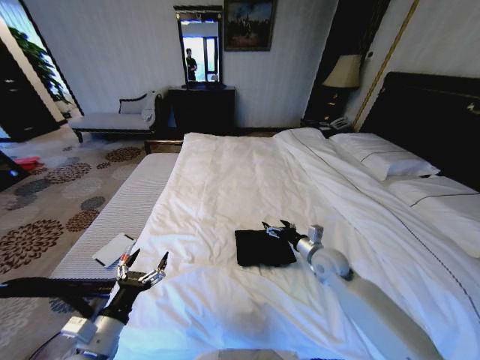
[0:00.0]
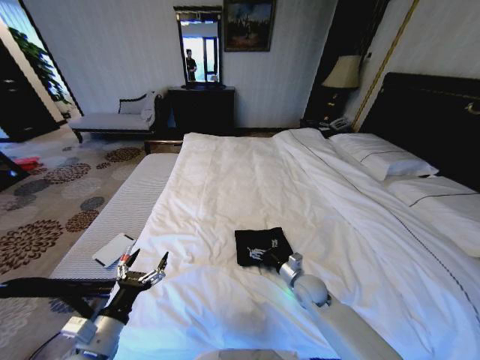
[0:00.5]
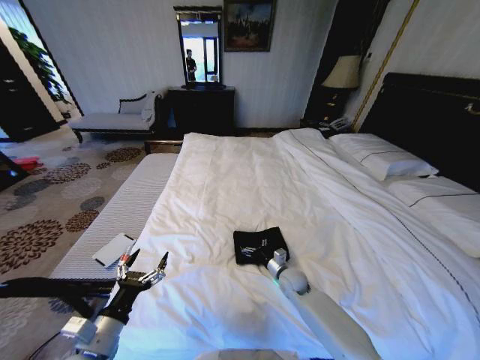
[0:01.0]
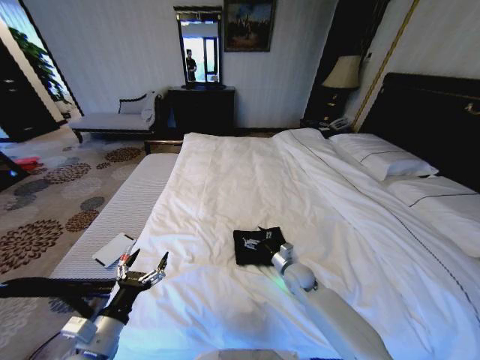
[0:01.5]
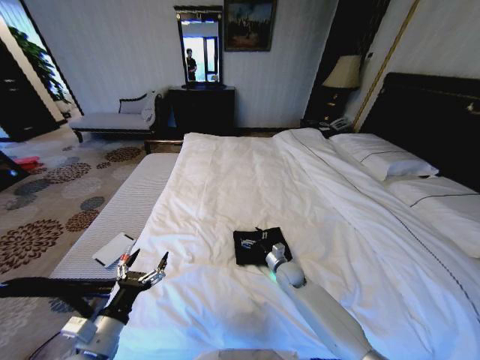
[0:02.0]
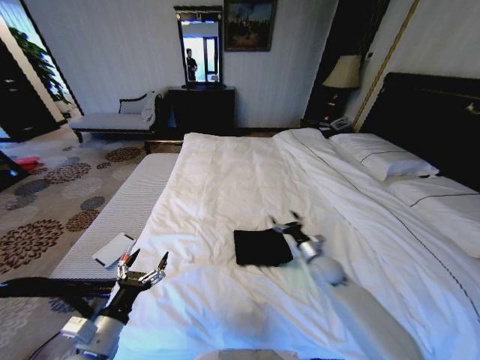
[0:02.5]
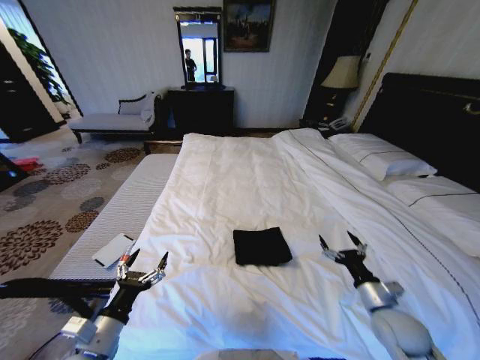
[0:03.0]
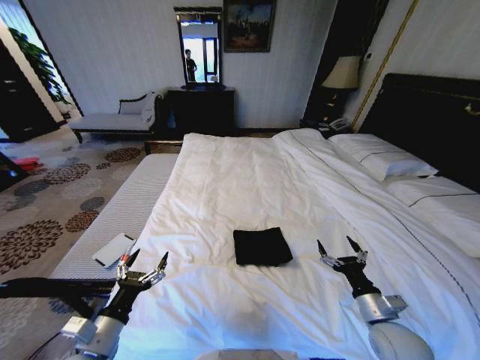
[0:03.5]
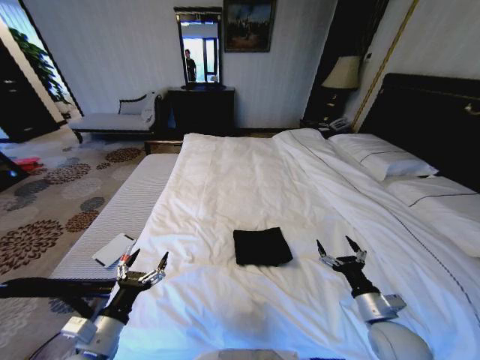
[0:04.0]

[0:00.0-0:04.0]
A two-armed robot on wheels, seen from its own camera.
Task of the whole recording: Fold the clothes on the bed.
0:00.0 to 0:02.0: The right gripper swings up and down, approximately 15 cm each way, with 2 reversals.
0:02.0 to 0:04.0: The right gripper moves backward, to the right and upward, approximately 30 cm.

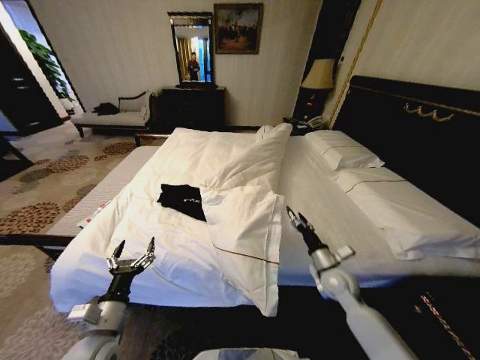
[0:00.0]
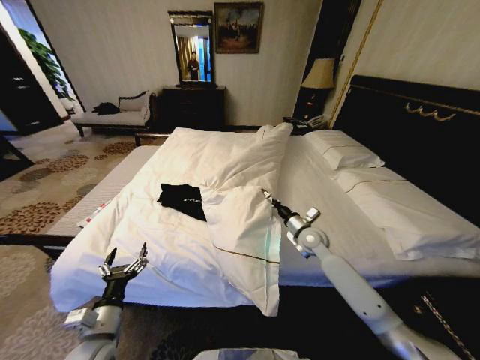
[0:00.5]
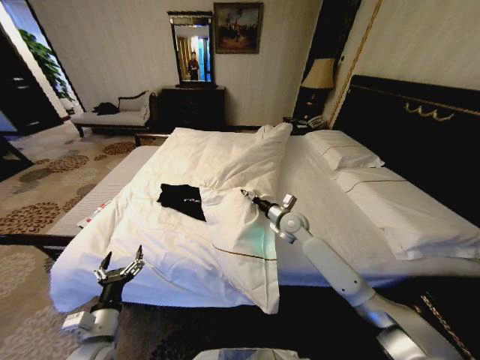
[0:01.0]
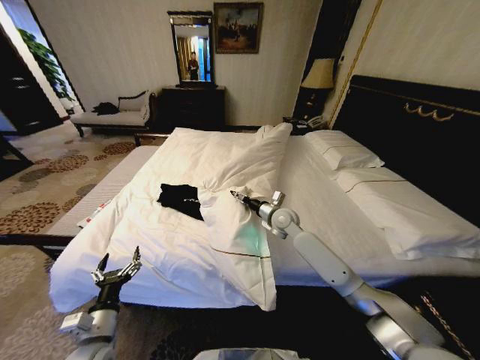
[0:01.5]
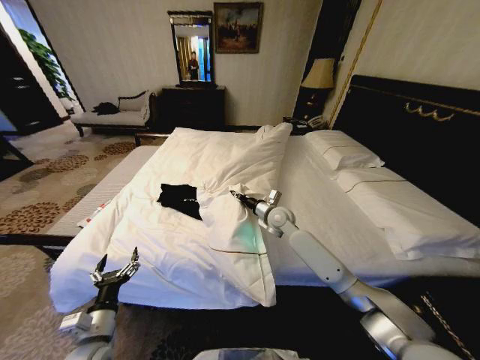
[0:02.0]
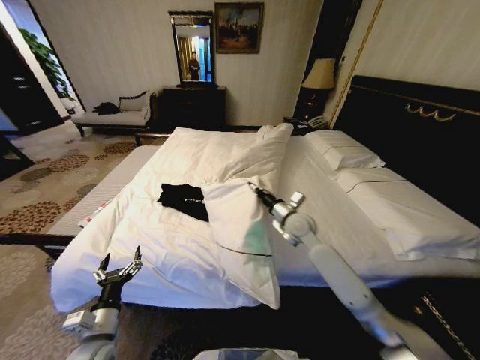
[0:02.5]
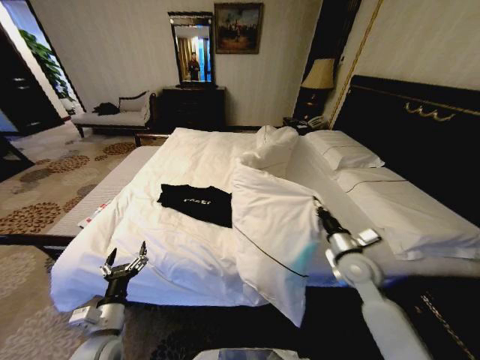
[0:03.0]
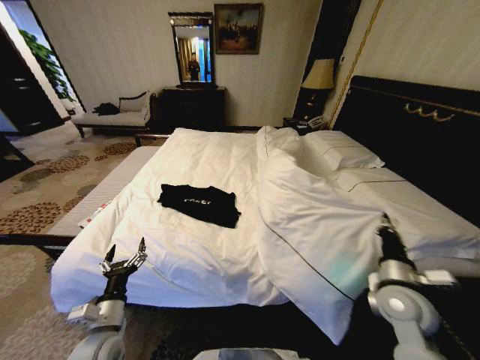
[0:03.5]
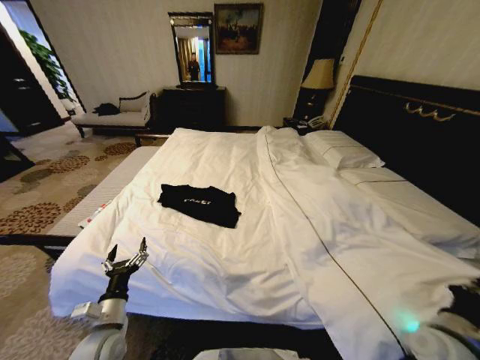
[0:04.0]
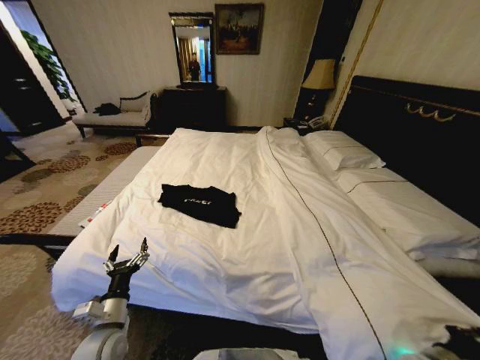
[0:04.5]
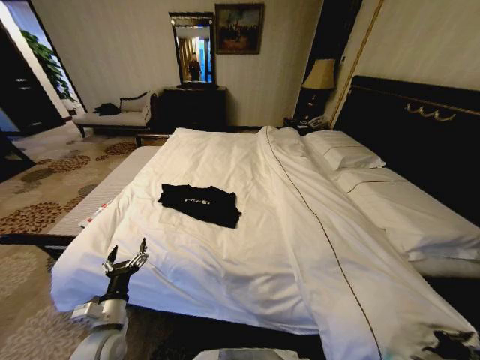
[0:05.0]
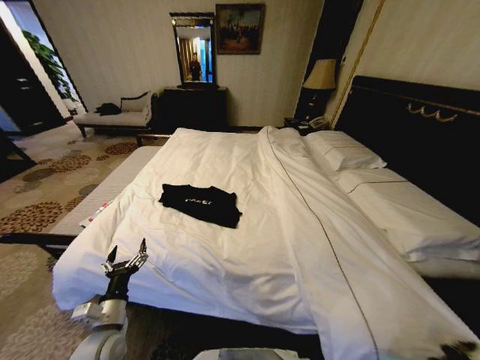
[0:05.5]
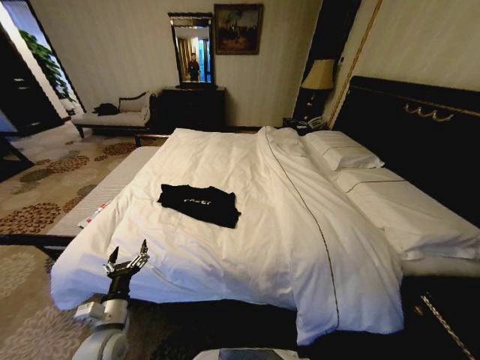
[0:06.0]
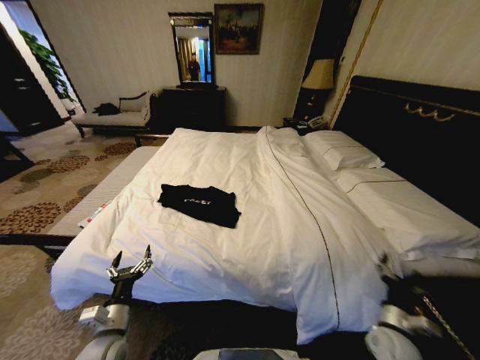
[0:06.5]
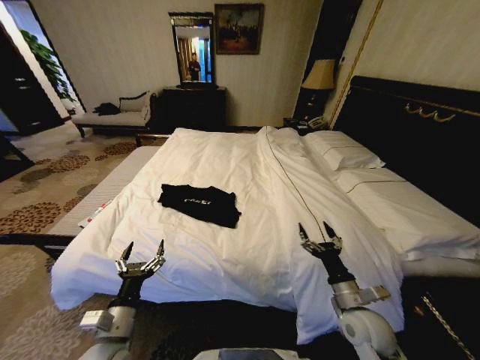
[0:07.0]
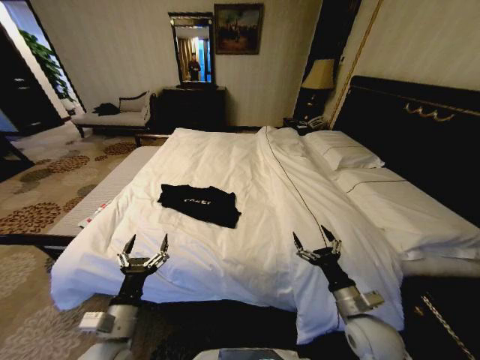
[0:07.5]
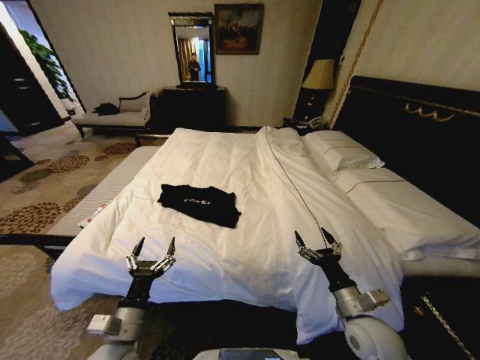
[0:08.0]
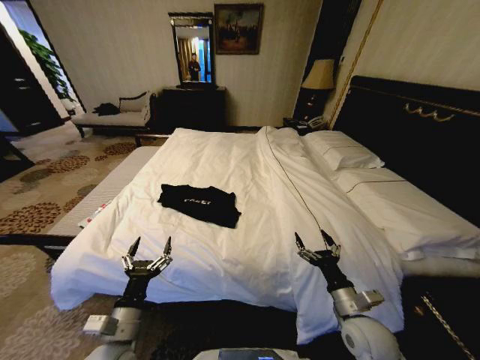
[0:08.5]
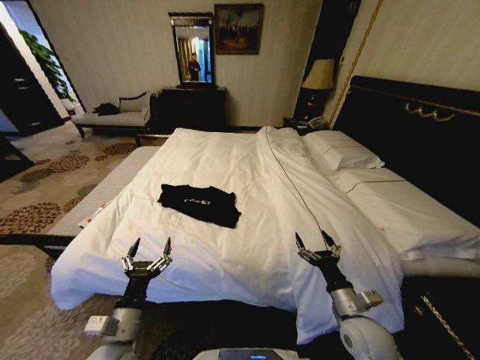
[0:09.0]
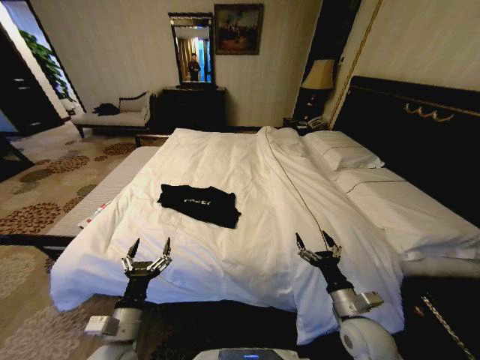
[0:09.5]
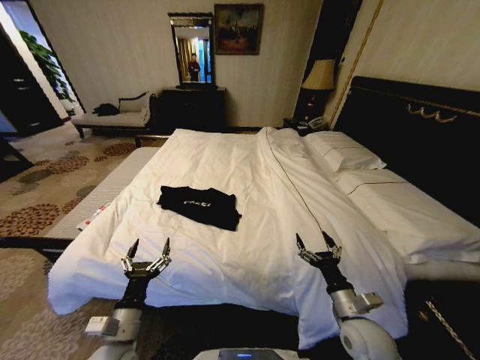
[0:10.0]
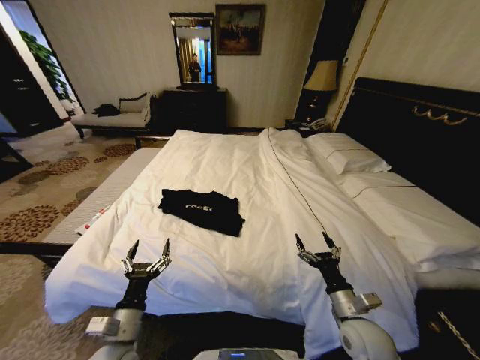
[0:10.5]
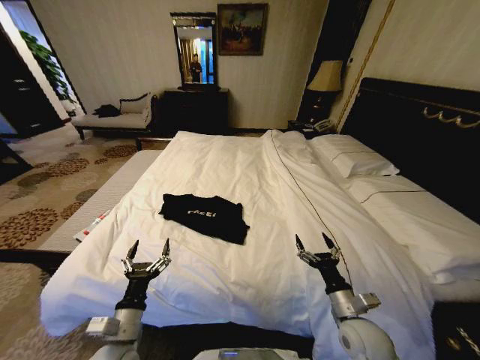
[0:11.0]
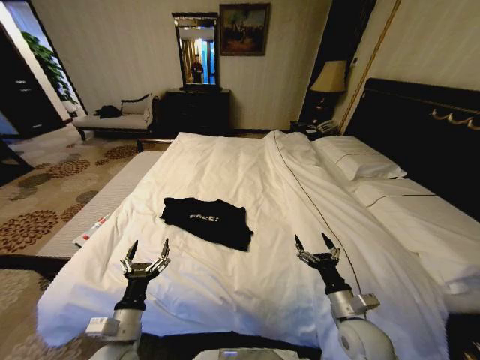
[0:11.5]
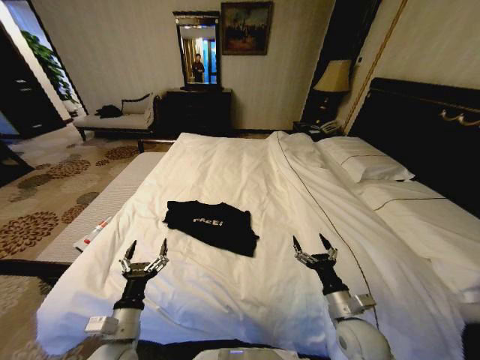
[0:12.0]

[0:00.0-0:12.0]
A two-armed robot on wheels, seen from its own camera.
Task of the whole recording: Fold the clothes on the bed.
0:00.0 to 0:02.0: The right gripper travels forward, to the left and upward by some 25 cm, and closes up.
0:02.0 to 0:04.0: The right gripper travels backward and to the right by approximately 40 cm, and closes its fingers.
0:04.0 to 0:06.0: The right gripper is displaced downward and backward by some 10 cm, and opens.
0:06.0 to 0:08.0: The right gripper goes approximately 25 cm to the left, upward and forward, while the left gripper travels to the right by roughly 5 cm.
0:08.0 to 0:10.0: There are only small adjustments of the grippers.

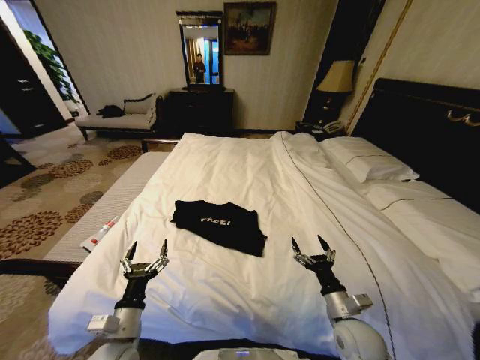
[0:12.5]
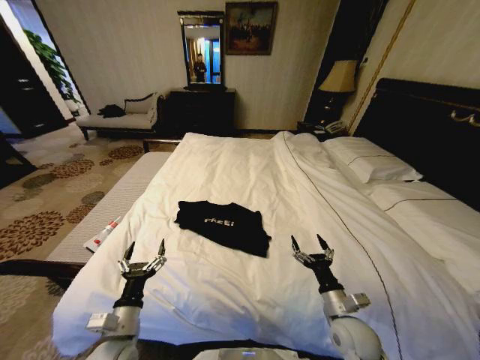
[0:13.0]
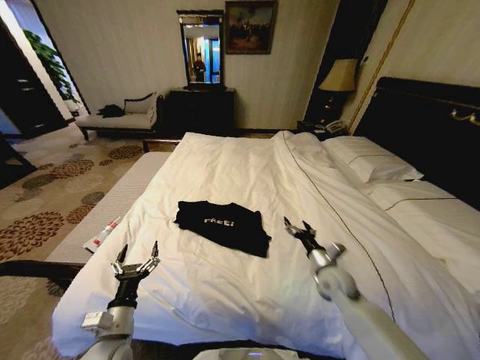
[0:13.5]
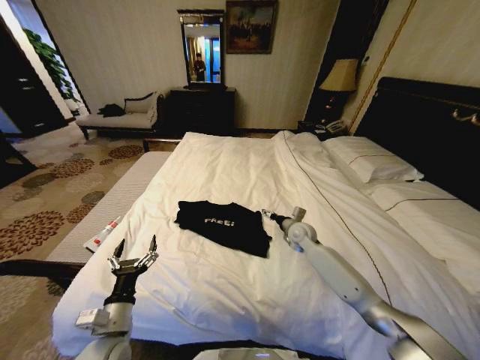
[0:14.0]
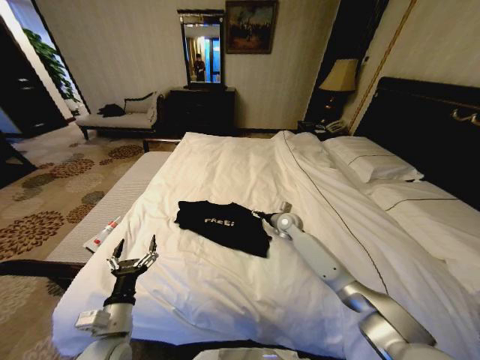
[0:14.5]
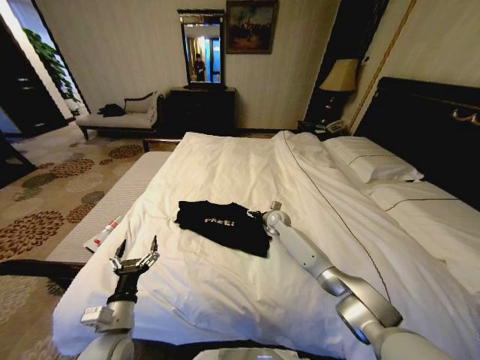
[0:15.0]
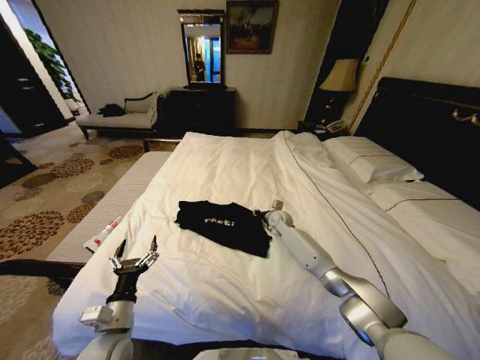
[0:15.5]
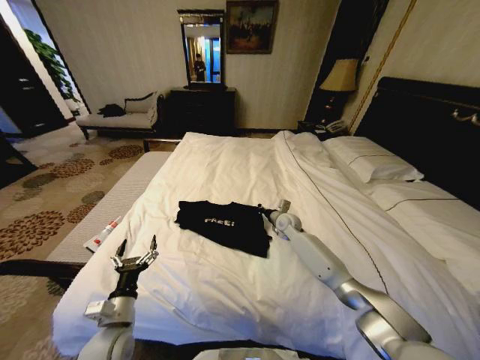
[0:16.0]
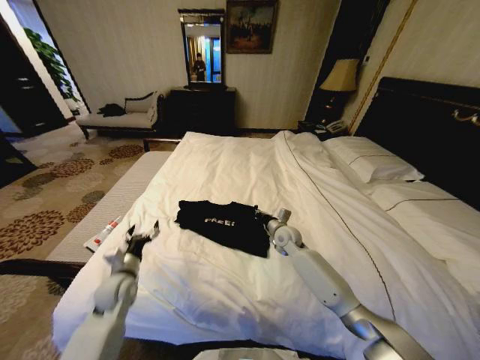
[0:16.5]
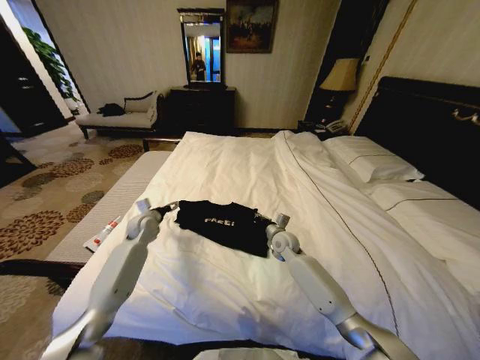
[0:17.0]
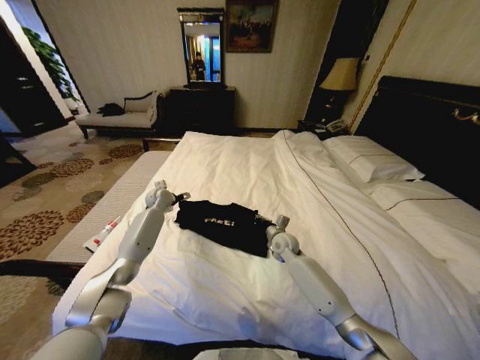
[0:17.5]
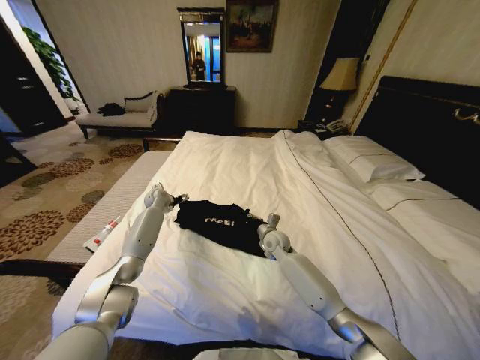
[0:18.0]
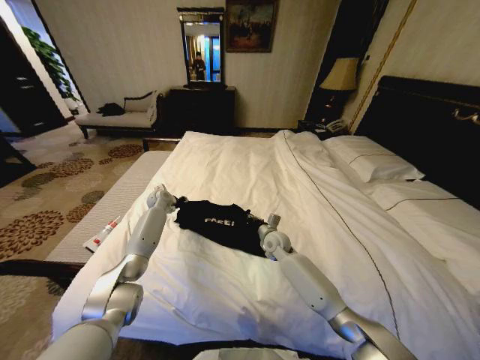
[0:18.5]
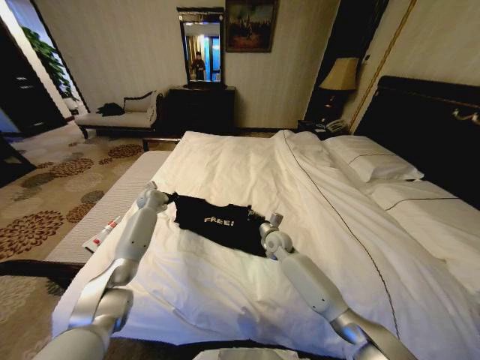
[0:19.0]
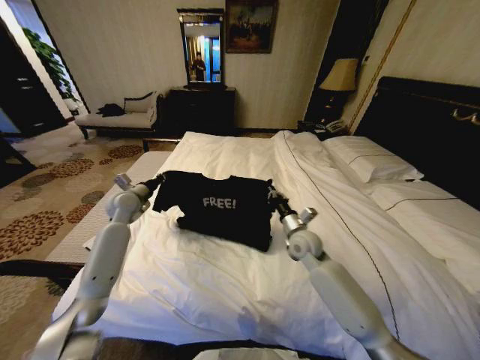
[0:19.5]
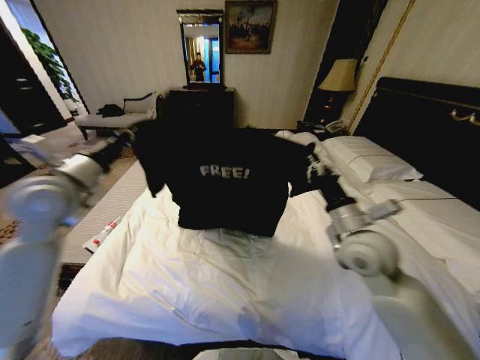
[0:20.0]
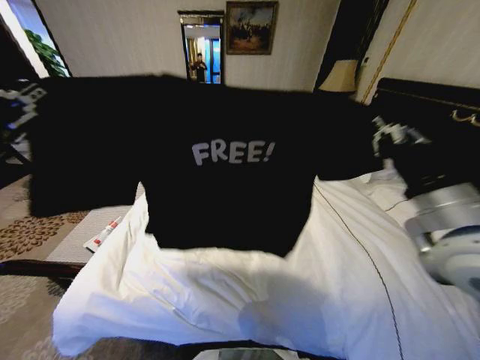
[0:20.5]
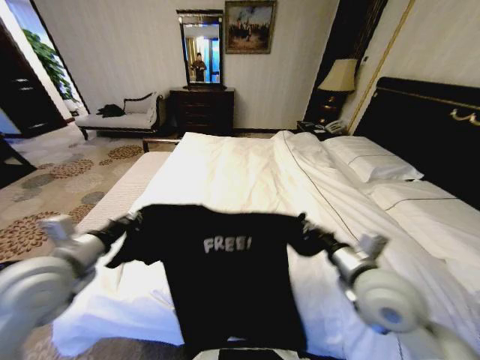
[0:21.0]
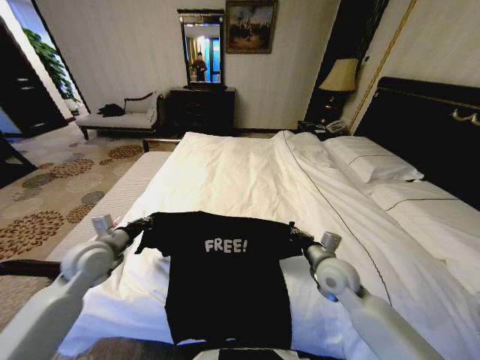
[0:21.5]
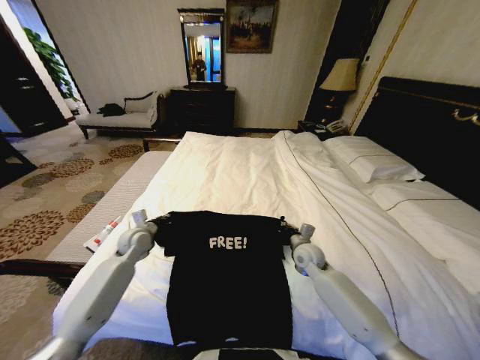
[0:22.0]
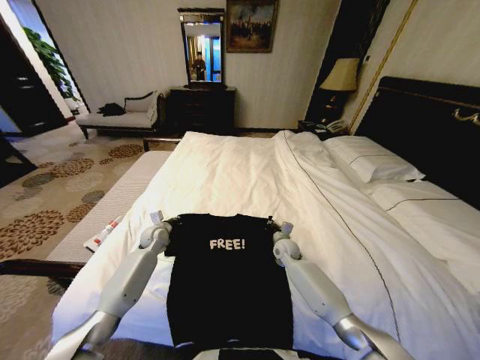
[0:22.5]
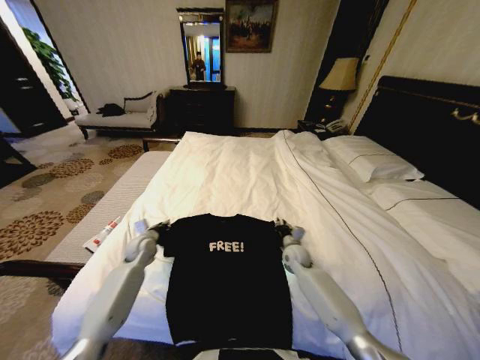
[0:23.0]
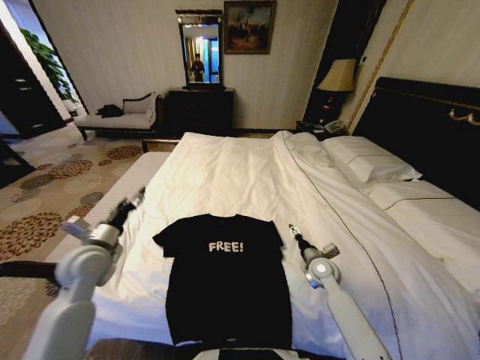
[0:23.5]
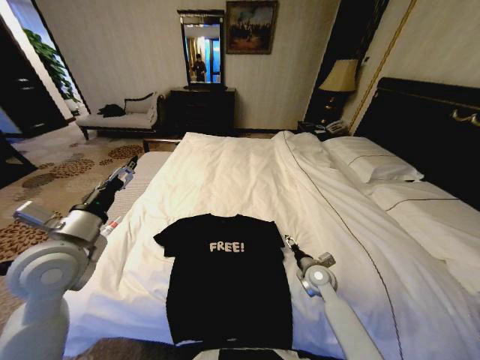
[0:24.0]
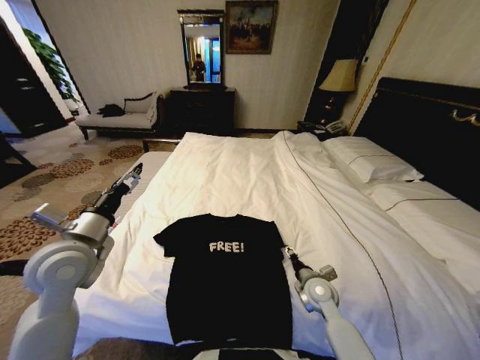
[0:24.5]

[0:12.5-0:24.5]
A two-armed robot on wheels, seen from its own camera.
Task of the whole recording: Fold the clothes on the bed.
0:12.5 to 0:14.5: The right gripper moves forward, approximately 35 cm.
0:14.5 to 0:16.5: The left gripper goes approximately 15 cm forward. The right gripper is displaced backward by about 5 cm, and closes its fingers.
0:16.5 to 0:18.5: The left gripper heads forward, covering approximately 30 cm, and closes.
0:18.5 to 0:20.5: The left gripper travels backward and upward by some 50 cm, and closes up; the right gripper moves upward, backward and to the right, some 40 cm.
0:20.5 to 0:22.5: Both grippers travel together downward and forward, some 50 cm.
0:22.5 to 0:24.5: The left gripper is displaced upward and backward by about 30 cm, and opens, while the right gripper heads backward, covering roughly 15 cm, and opens its fingers.
